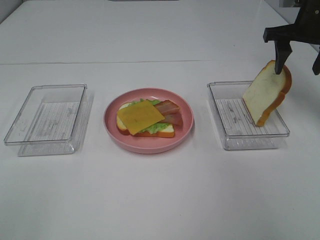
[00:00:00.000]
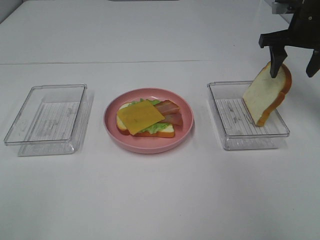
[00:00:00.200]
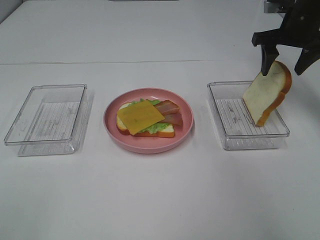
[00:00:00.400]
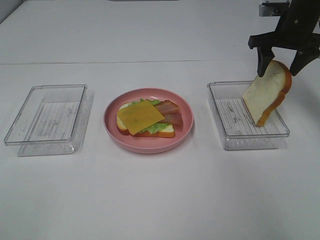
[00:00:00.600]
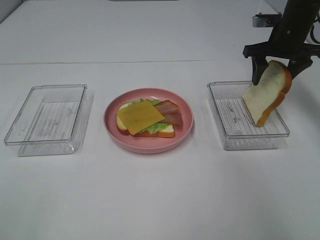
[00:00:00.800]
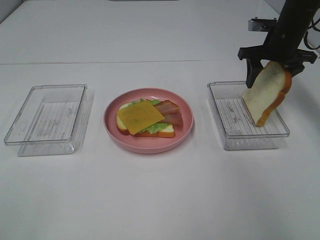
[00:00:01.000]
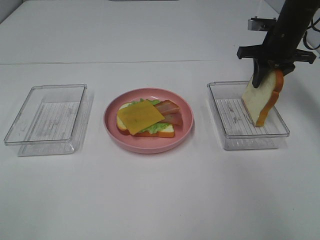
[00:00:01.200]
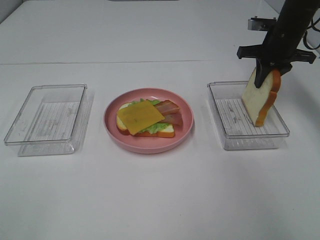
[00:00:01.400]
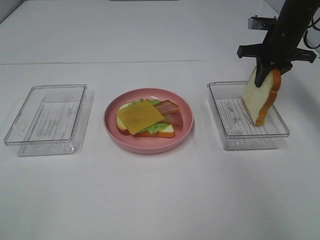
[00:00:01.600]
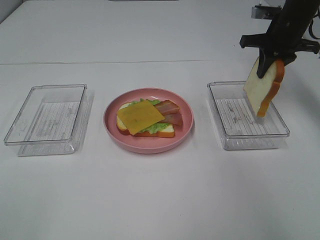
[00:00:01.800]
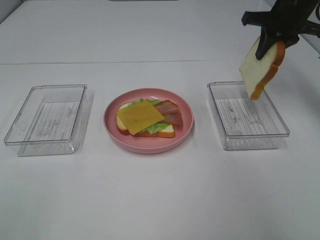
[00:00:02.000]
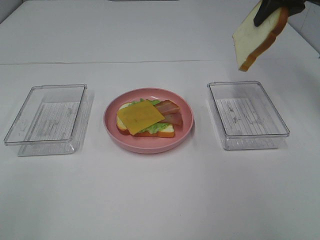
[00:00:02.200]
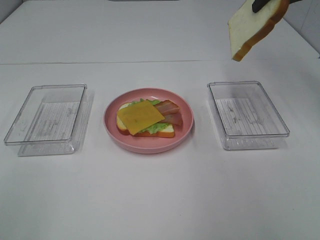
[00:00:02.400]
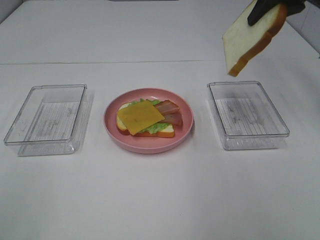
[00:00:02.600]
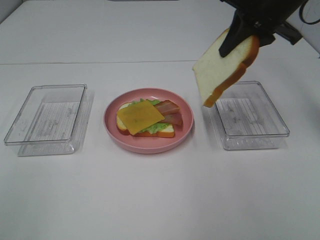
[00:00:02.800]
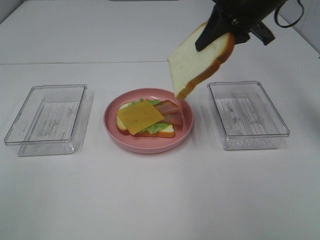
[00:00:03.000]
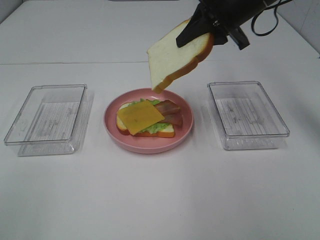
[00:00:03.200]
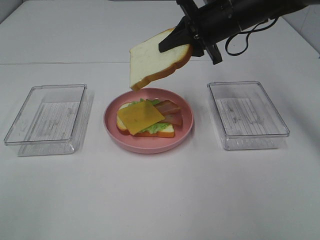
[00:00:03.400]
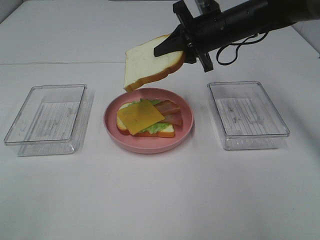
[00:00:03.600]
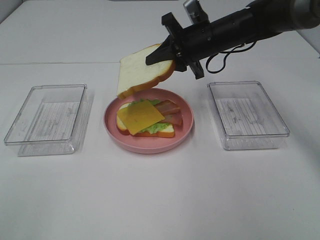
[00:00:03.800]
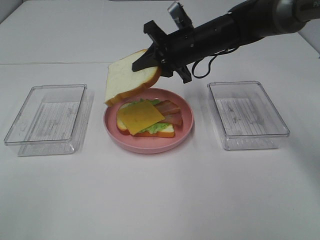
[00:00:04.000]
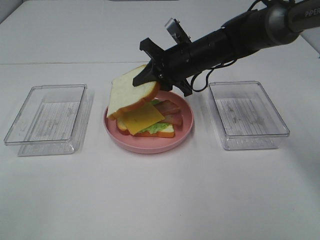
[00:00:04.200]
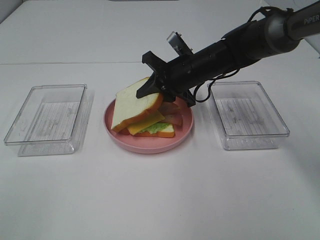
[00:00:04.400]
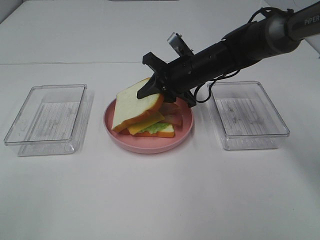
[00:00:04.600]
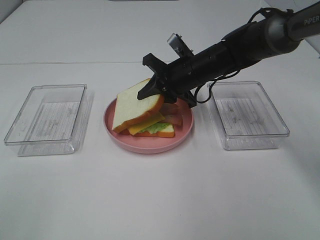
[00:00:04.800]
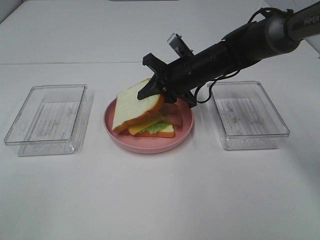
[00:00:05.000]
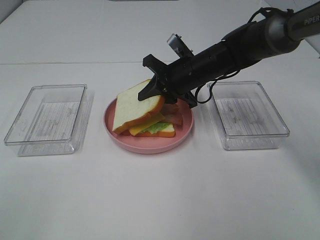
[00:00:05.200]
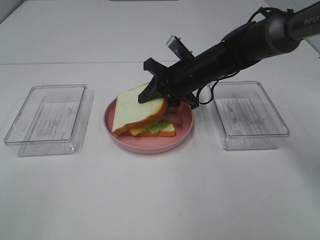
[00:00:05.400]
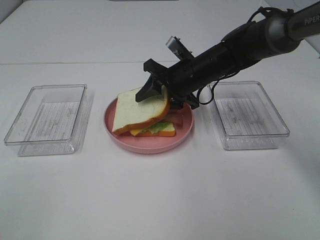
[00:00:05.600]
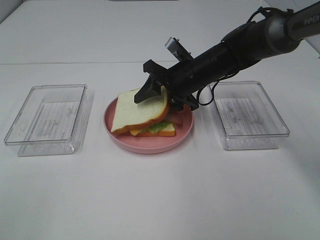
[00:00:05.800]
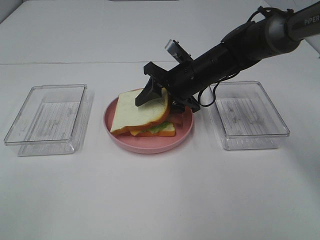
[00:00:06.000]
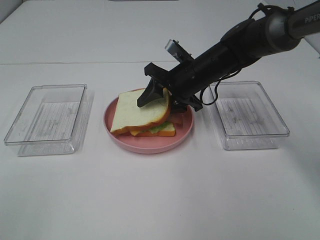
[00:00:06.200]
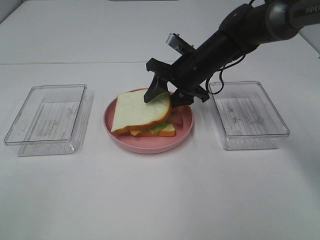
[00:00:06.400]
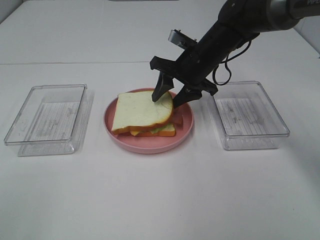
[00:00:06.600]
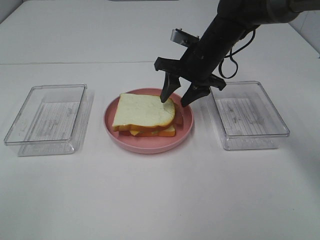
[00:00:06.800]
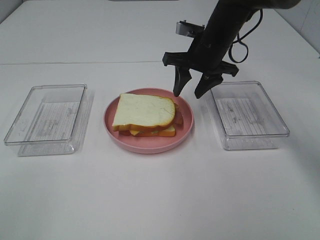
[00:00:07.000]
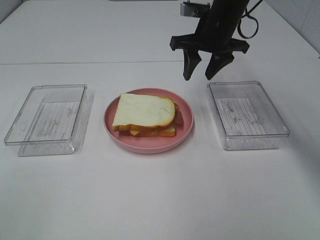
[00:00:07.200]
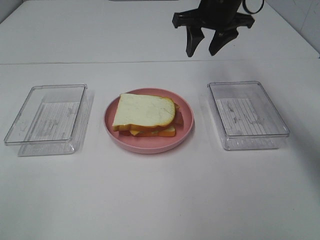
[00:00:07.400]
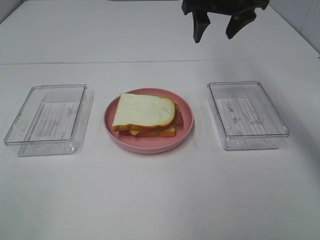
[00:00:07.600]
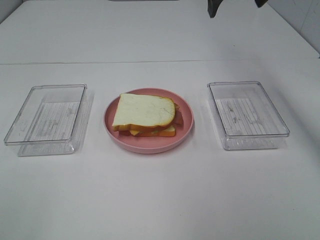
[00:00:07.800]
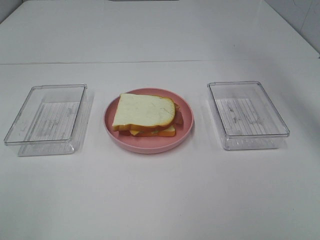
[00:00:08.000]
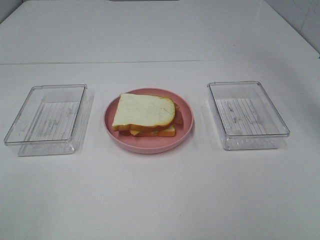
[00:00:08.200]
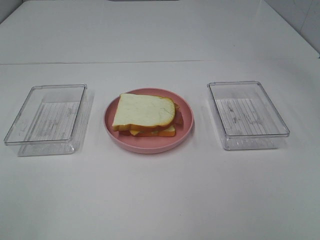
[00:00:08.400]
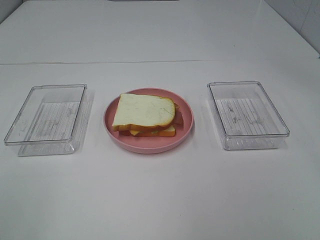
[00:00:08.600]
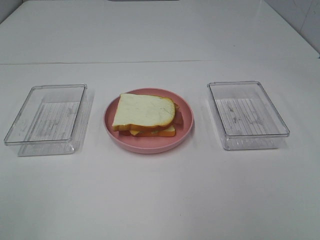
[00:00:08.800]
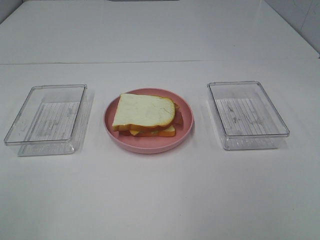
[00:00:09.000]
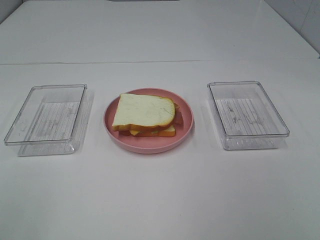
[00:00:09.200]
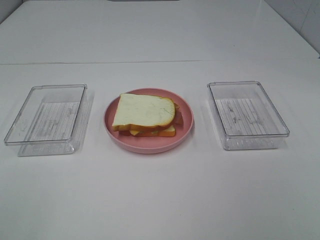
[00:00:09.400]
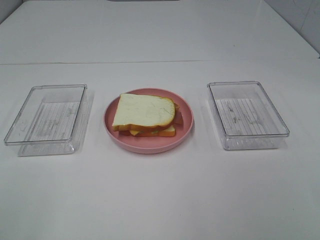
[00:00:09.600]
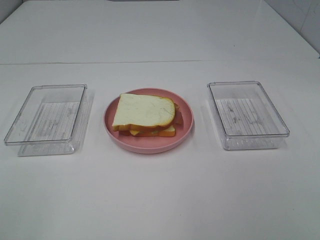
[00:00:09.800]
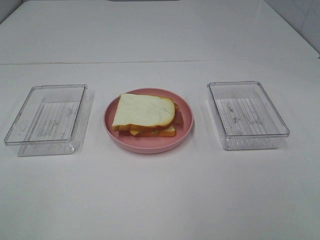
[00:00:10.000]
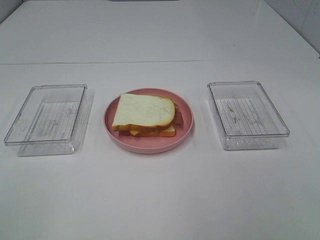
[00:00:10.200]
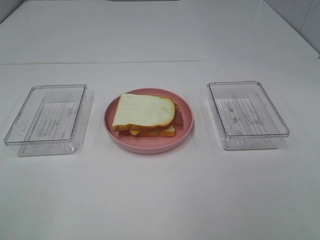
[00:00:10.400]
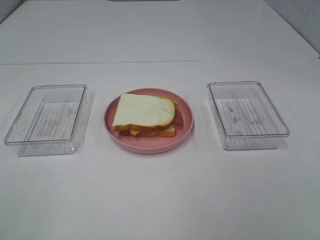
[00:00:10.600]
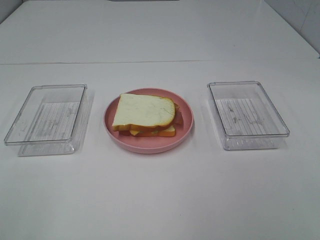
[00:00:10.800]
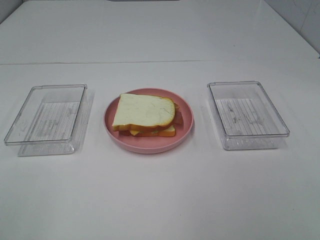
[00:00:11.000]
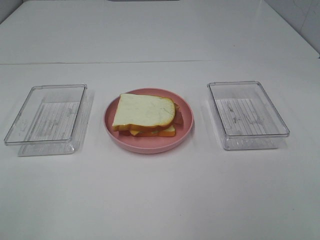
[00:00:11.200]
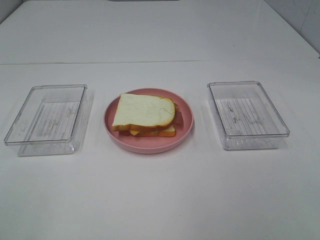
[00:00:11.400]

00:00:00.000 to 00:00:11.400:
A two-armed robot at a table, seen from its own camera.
Task of the whole recording: Make sandwiches.
Step, 00:00:01.800 to 00:00:06.800: Right hand:place the bread slice on the cheese slice.
00:00:00.000 to 00:00:01.400: The right gripper travels downward by approximately 5 cm, and closes up.
00:00:01.400 to 00:00:02.800: The right gripper moves upward, backward and to the left, approximately 15 cm.
00:00:02.800 to 00:00:04.200: The right gripper is displaced downward and to the left by roughly 20 cm.
00:00:04.200 to 00:00:05.600: The grippers move only a little.
00:00:05.600 to 00:00:07.200: The right gripper is displaced upward by approximately 10 cm.
00:00:07.200 to 00:00:08.600: The right gripper is displaced upward, backward and to the right by approximately 35 cm, and opens its fingers.
